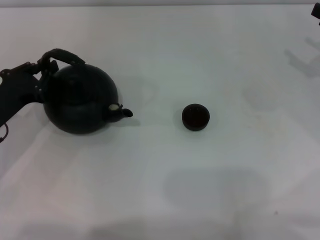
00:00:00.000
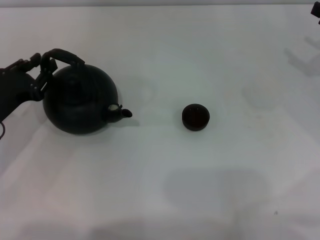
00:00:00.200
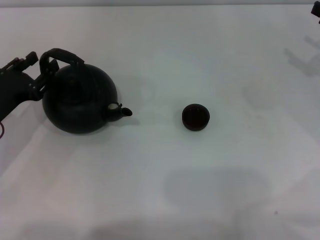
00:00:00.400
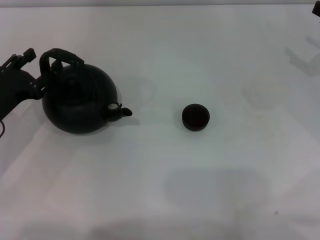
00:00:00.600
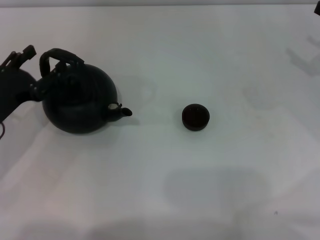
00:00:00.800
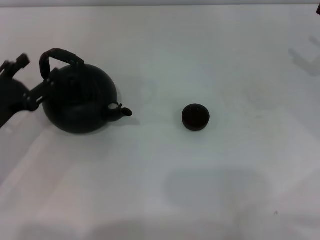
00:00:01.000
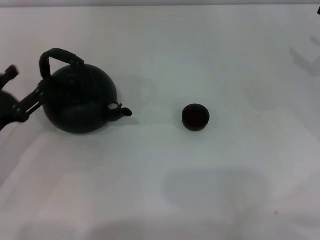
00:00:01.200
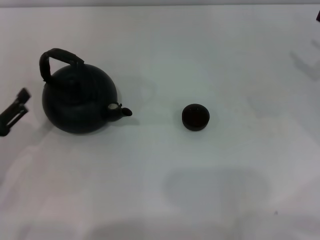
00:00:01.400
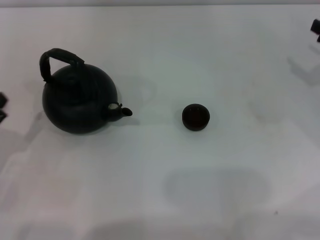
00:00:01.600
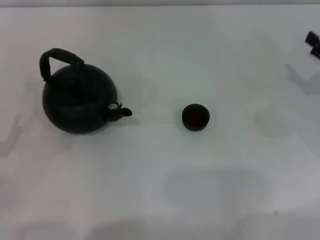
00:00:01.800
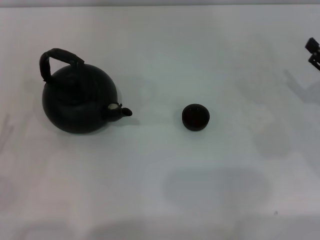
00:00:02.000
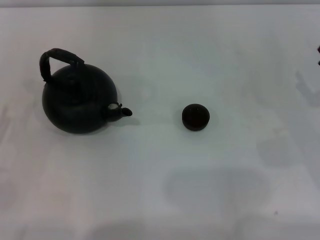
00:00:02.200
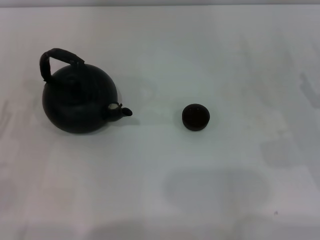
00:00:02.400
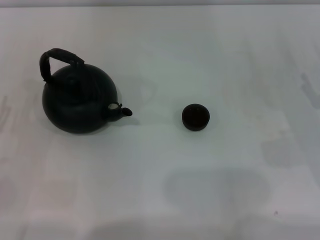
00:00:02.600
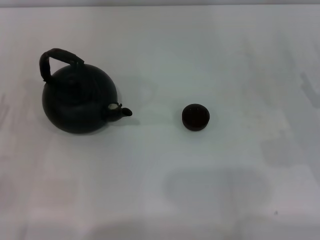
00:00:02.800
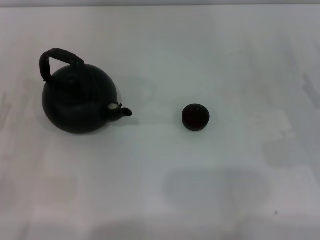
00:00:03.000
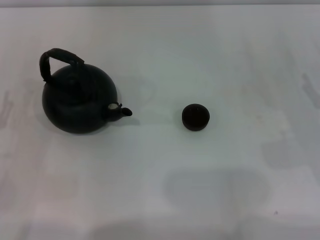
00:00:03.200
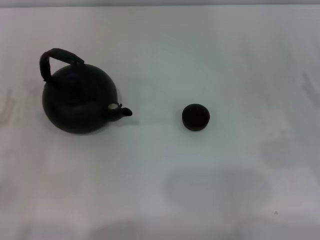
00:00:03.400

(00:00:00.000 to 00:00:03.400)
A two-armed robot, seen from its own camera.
Task of the whole recording: Grasp the handle of the teapot with one hand and pour tea into the teacup.
00:00:00.000 - 00:00:01.600: The left gripper moves backward, about 10 cm, and opens up.

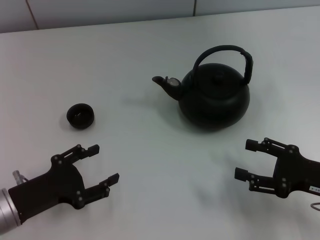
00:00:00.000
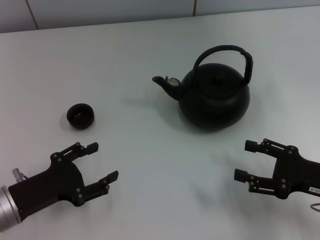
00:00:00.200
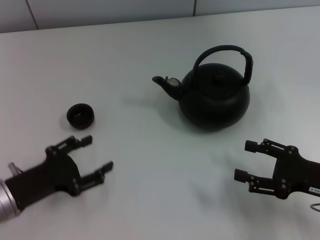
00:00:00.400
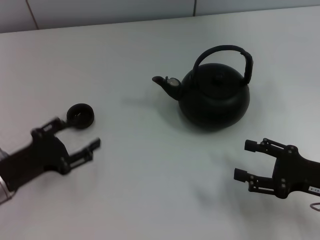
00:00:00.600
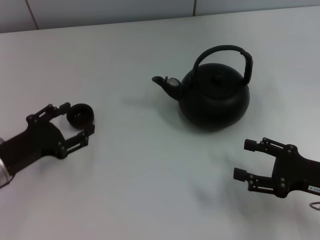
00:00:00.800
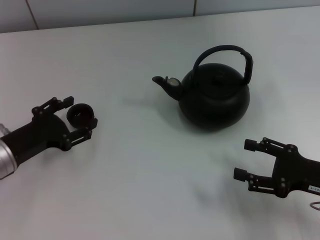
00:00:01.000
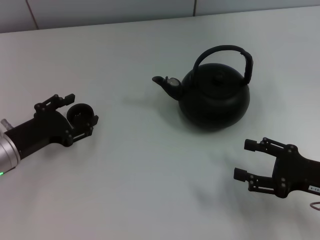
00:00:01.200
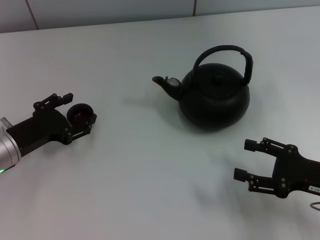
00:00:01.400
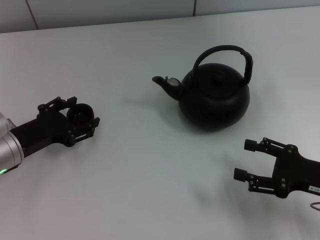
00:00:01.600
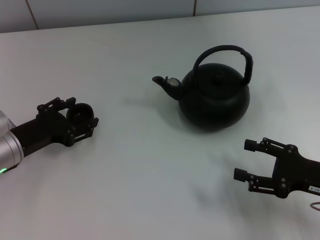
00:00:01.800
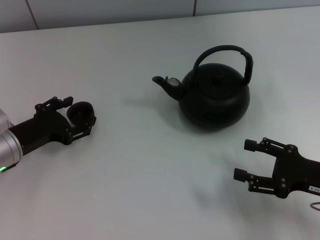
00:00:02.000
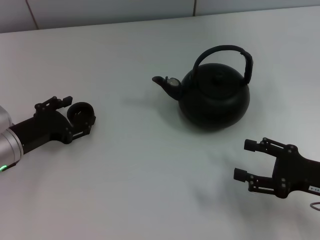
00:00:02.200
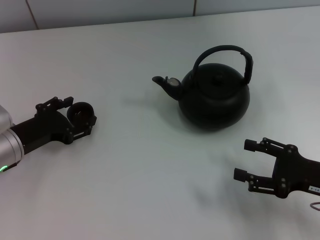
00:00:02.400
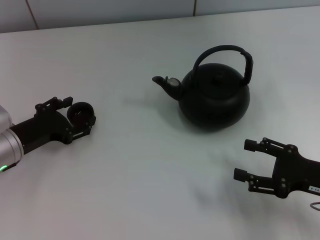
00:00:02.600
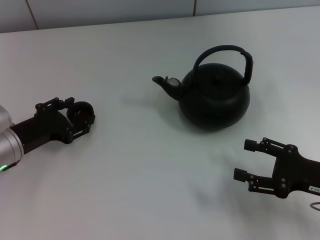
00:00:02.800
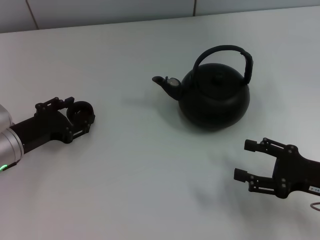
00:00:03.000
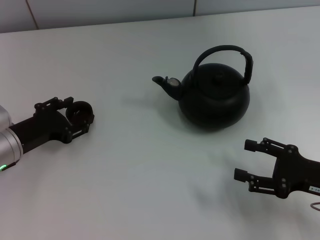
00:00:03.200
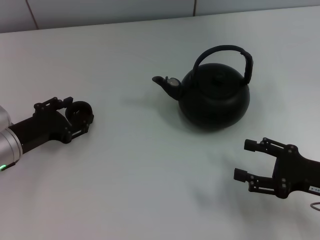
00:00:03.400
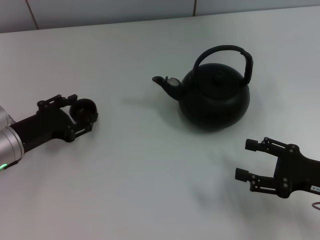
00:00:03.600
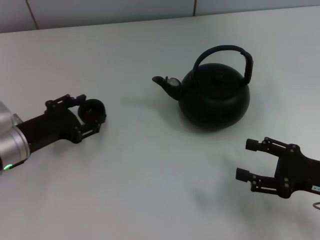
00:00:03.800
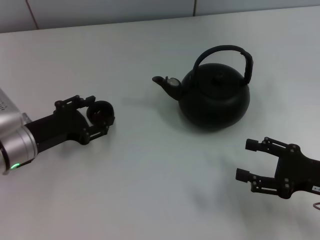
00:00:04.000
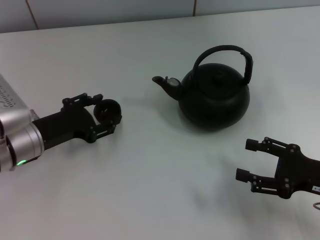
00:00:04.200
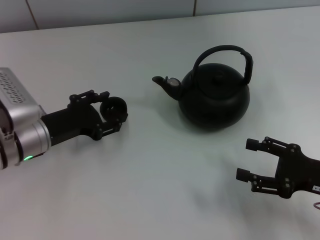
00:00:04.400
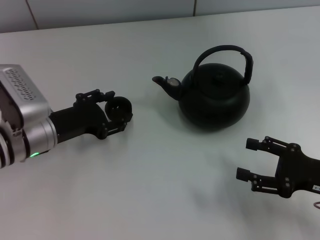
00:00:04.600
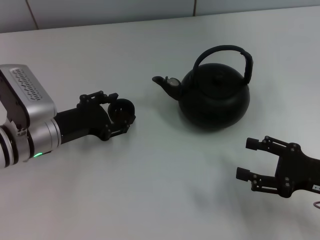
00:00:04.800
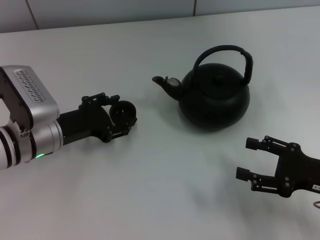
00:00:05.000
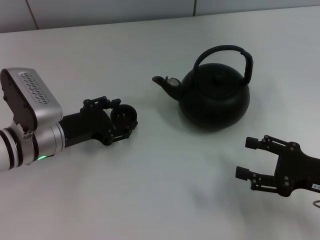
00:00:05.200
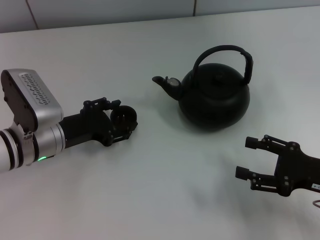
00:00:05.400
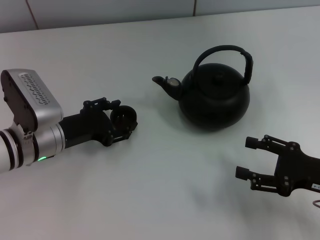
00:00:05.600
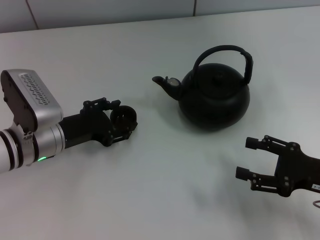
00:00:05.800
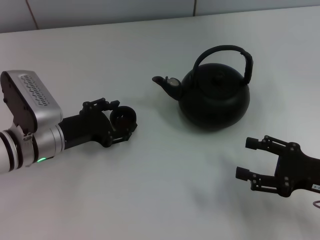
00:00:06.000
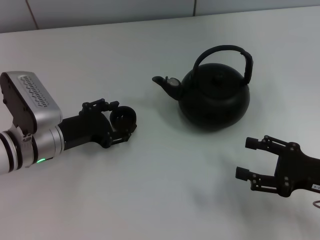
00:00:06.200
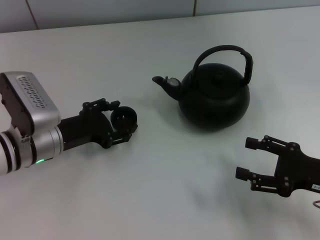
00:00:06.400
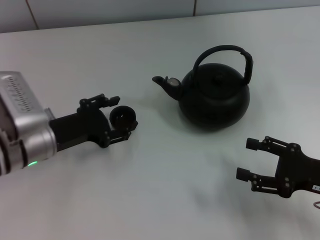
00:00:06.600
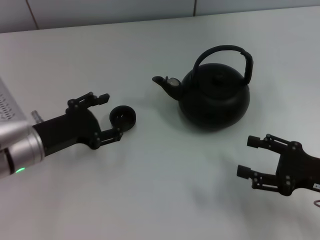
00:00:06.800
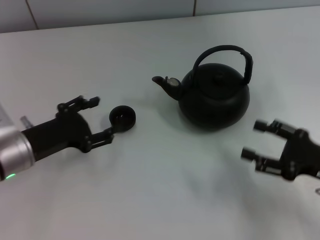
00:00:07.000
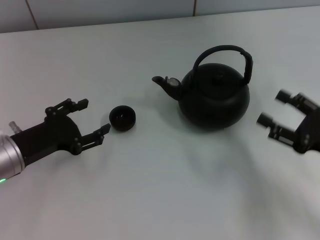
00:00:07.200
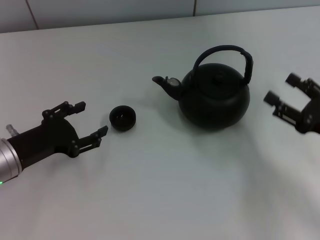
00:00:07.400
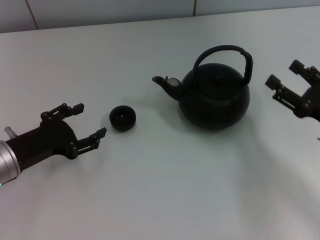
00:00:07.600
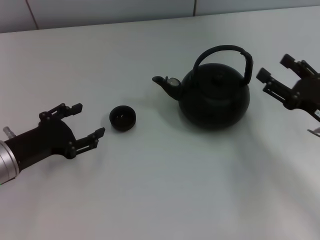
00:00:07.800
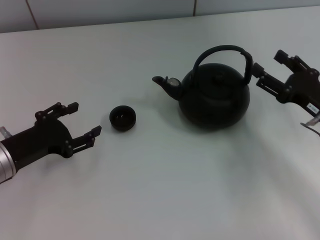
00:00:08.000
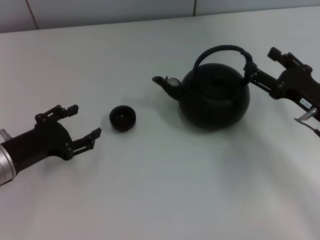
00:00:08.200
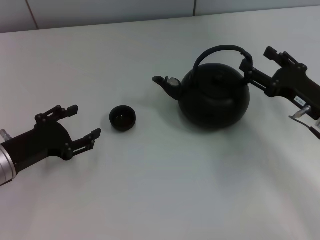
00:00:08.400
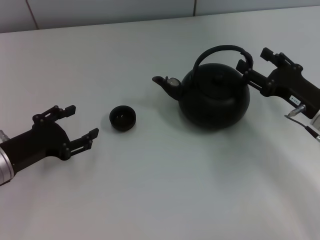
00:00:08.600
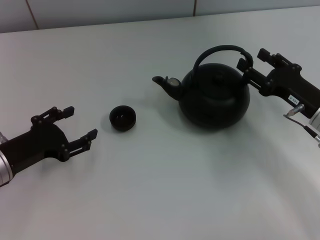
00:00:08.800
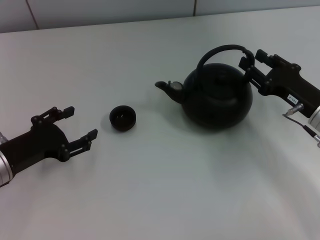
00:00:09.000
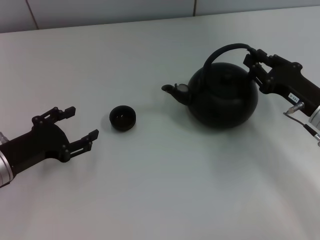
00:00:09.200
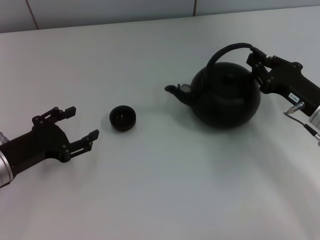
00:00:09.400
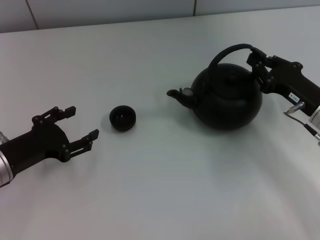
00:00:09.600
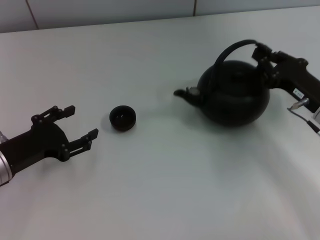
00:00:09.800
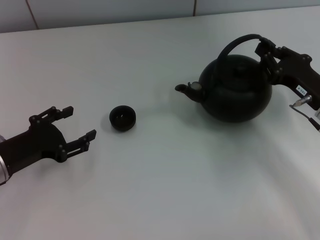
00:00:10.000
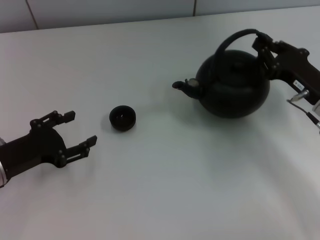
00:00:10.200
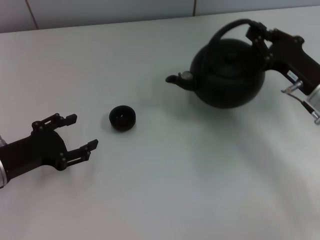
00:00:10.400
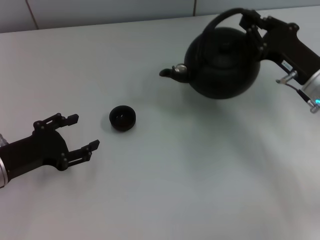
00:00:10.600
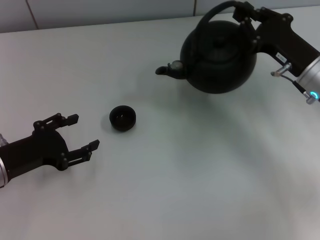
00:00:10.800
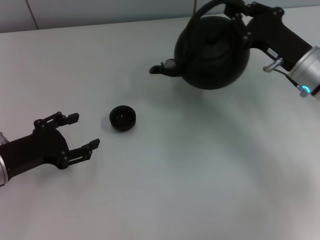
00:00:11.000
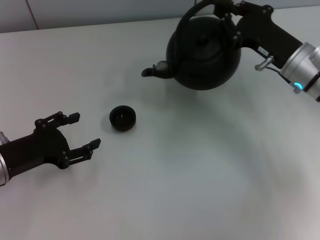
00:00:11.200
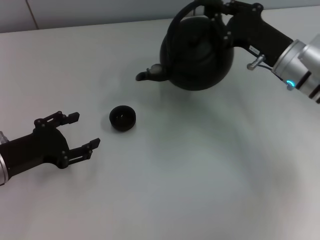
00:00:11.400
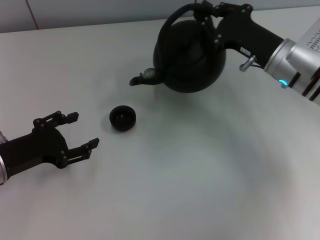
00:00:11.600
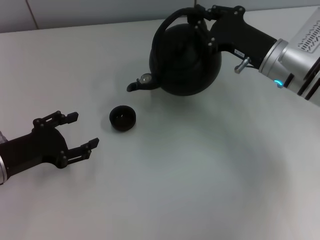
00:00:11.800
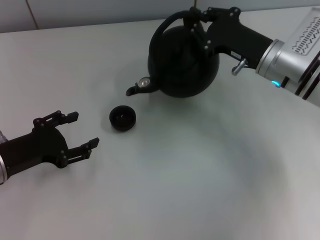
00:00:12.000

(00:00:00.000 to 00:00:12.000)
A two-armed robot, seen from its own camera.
Task of the whole recording: Grasp the handle of the teapot with one hand and pour tea into the teacup.
Step, 00:00:00.000 - 00:00:03.600: Pick up the teacup with the left gripper.
Step, 00:00:03.800 - 00:00:07.000: Place the teacup in the center of view with the left gripper.
Step, 00:00:07.200 - 00:00:10.200: Pick up the teapot with the right gripper.
00:00:00.000 - 00:00:01.600: The left gripper shifts approximately 10 cm forward.
00:00:01.600 - 00:00:03.000: Both grippers stay put.
00:00:03.000 - 00:00:06.000: The grippers stay close to where they were, moving slightly.
00:00:06.000 - 00:00:07.600: The left gripper goes about 5 cm to the left.
00:00:07.600 - 00:00:09.000: The right gripper shifts roughly 5 cm forward.
00:00:09.000 - 00:00:10.400: The right gripper closes up.
00:00:10.400 - 00:00:12.000: The right gripper shifts about 10 cm to the left and forward.

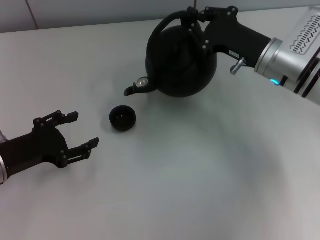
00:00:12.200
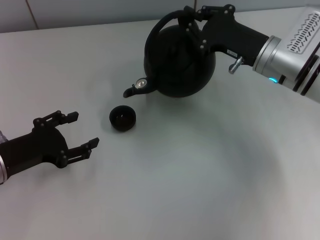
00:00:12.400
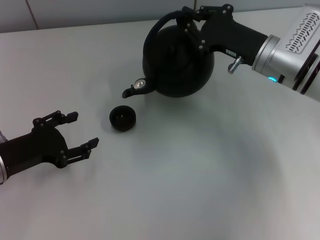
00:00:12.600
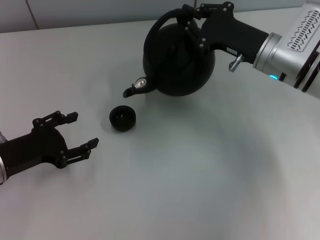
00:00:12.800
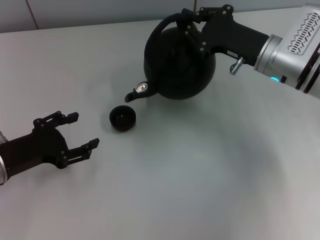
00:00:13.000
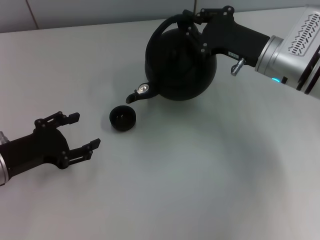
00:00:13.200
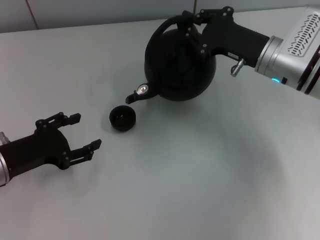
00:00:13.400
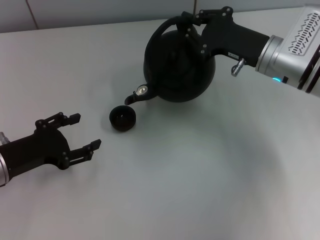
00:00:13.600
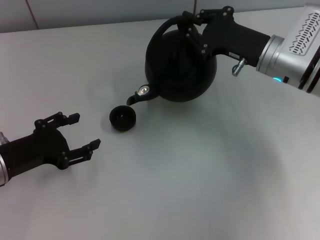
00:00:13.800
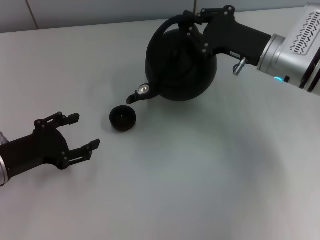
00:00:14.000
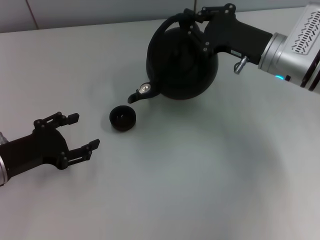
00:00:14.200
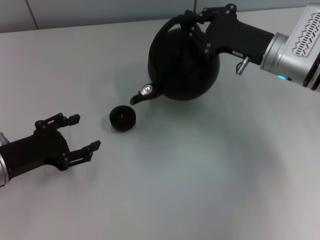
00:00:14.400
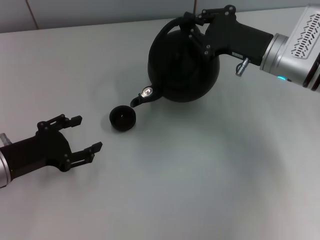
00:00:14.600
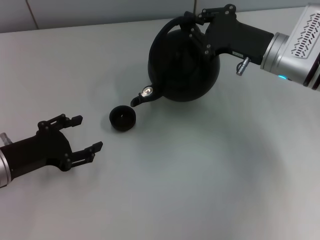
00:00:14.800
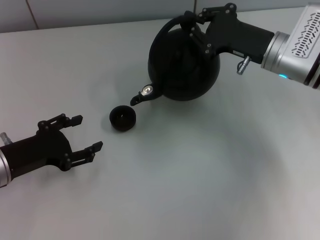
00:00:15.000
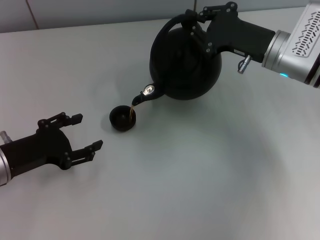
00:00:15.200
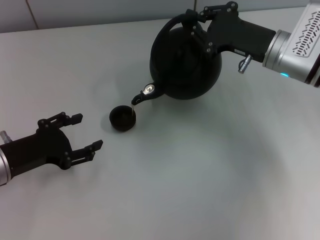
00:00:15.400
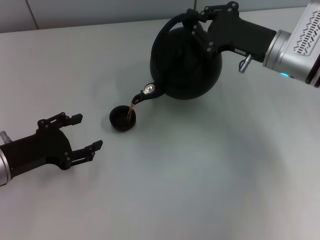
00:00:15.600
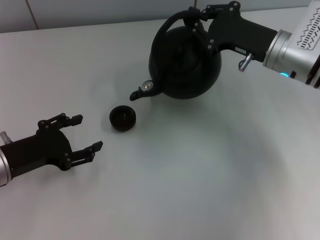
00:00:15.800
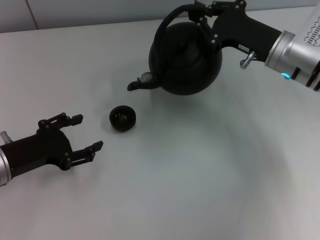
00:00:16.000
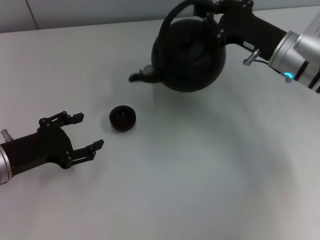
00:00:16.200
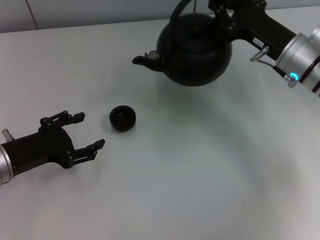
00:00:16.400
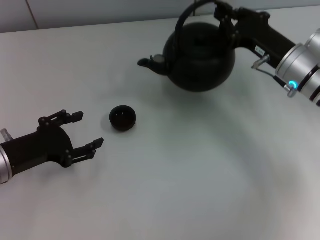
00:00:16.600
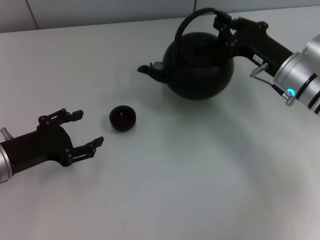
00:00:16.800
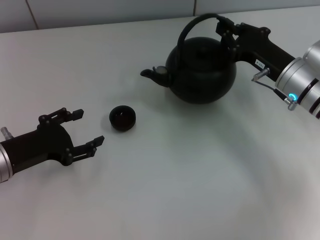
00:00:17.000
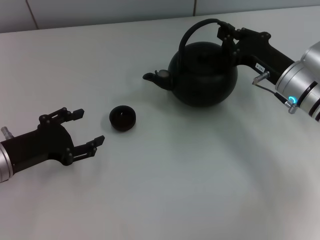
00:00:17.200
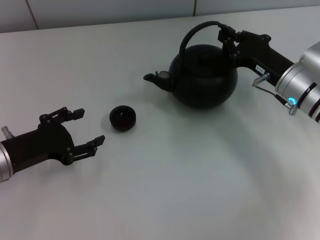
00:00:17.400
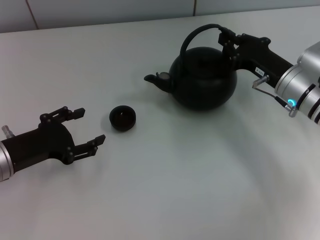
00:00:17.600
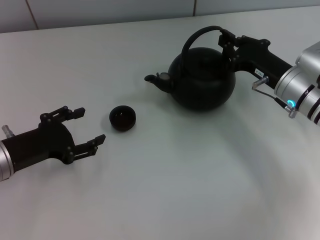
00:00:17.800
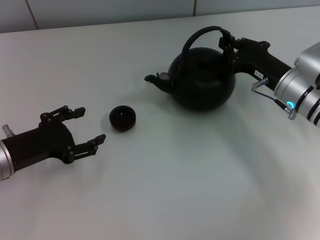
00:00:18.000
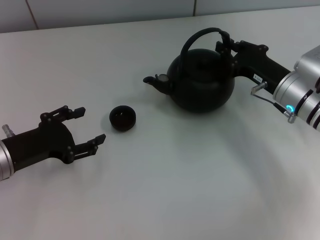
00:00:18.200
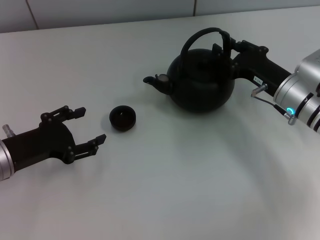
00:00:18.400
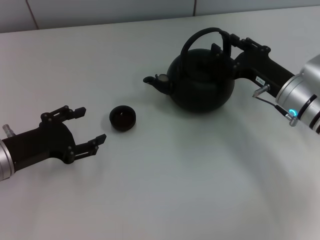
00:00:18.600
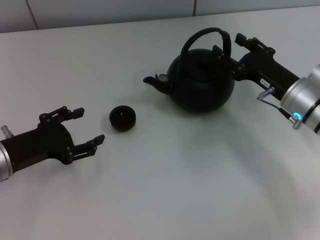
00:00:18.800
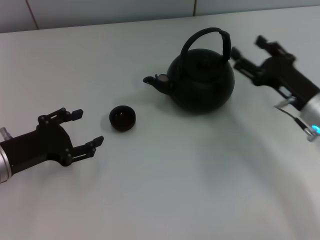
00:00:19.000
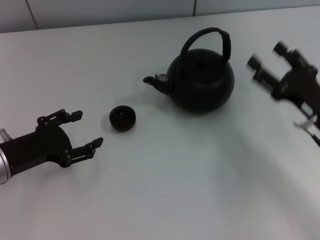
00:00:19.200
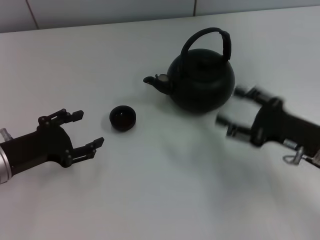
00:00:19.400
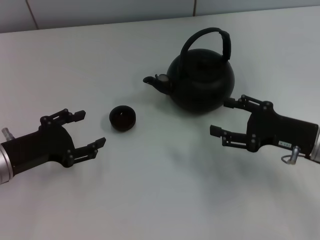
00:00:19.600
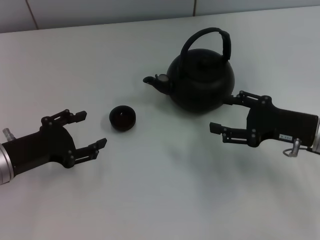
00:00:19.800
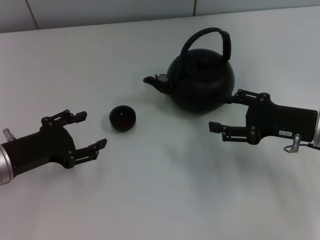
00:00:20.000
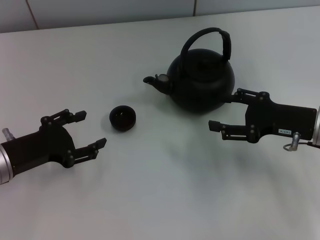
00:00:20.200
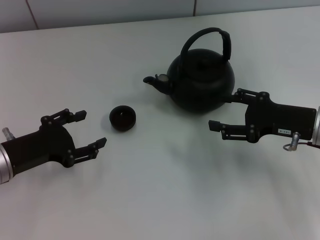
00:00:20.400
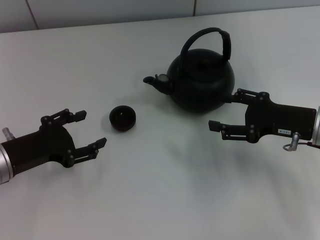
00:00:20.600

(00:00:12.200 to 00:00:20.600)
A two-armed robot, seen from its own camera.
Task of the whole recording: Grasp the handle of the teapot with one hand and pour tea into the teacup.
Step, 00:00:16.200 - 00:00:19.000: Put down the teapot with the right gripper.
00:00:12.200 - 00:00:15.000: The grippers move only a little.
00:00:16.400 - 00:00:17.800: There are only small adjustments of the grippers.
00:00:17.800 - 00:00:19.200: The right gripper goes roughly 10 cm backward, and opens up.
